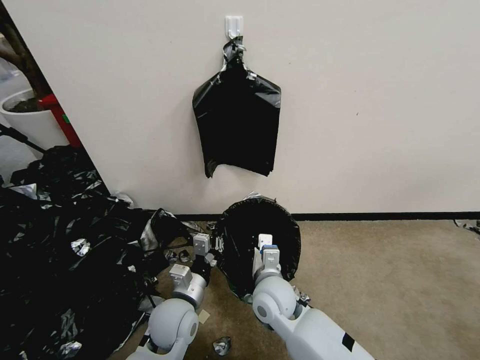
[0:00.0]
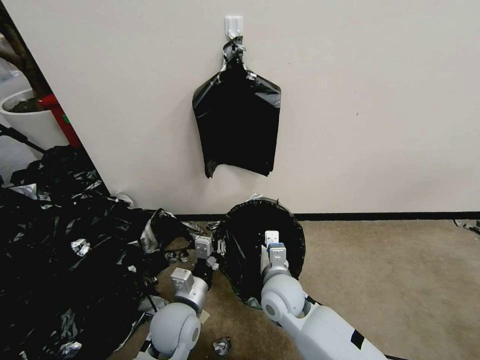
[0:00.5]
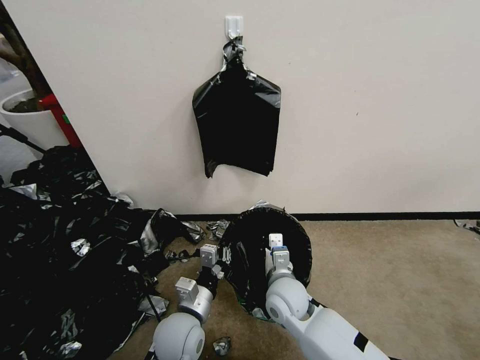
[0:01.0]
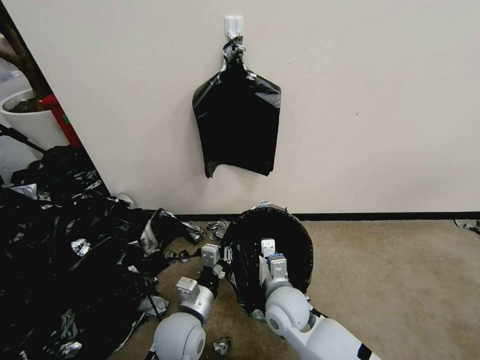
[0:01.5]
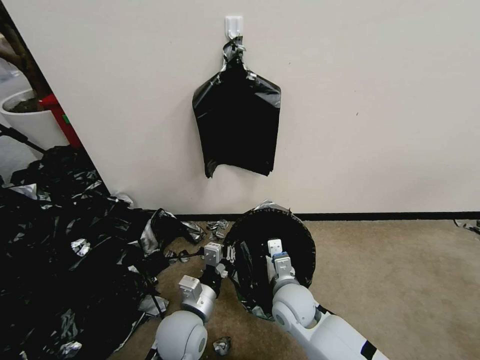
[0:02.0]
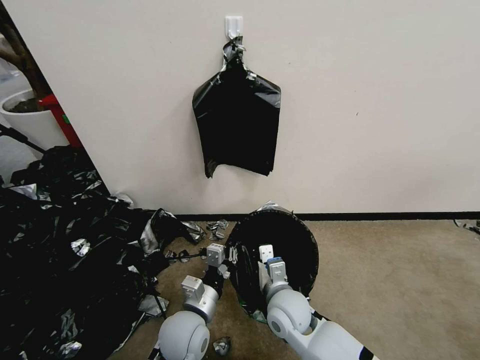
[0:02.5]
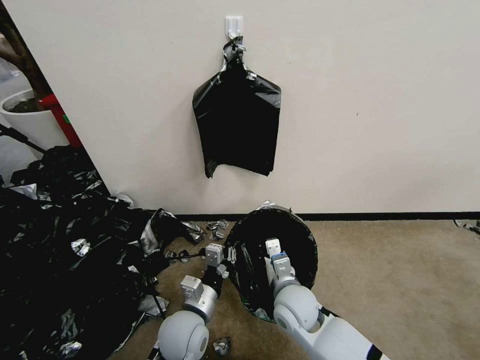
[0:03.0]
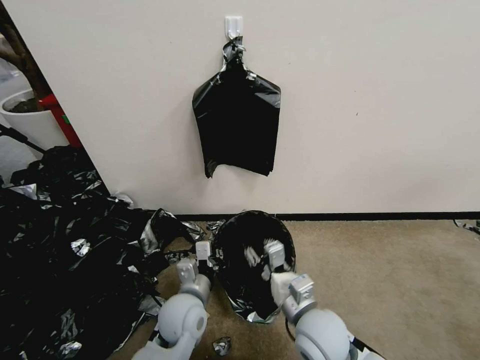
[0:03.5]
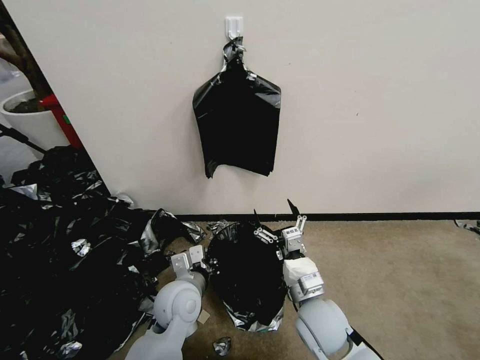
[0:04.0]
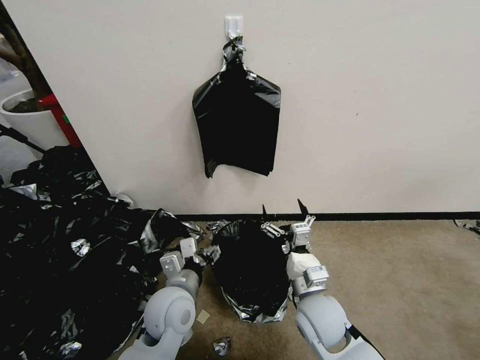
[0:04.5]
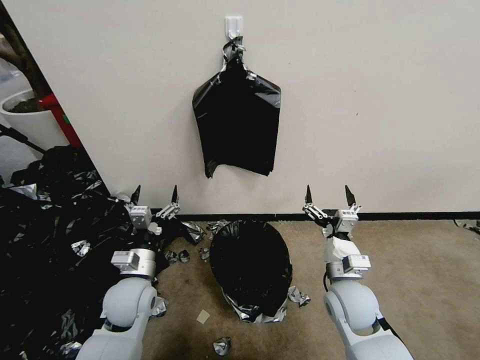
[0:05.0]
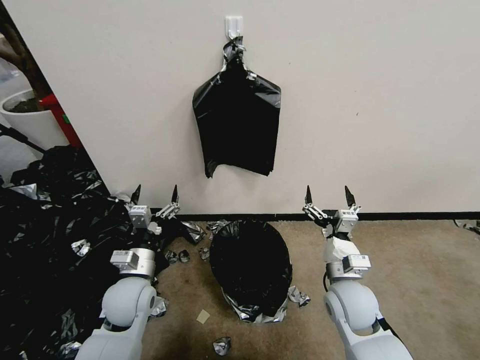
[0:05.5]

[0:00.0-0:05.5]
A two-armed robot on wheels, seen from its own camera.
Task of the whole recording: Place a trash bag onto the trash bin.
0:00.0 to 0:02.0: The right gripper changes place by roughly 5 cm.
0:02.0 to 0:03.5: The right gripper travels backward and upward by approximately 10 cm, and opens up.
0:03.5 to 0:05.5: The left gripper goes about 10 cm to the left, and opens its fingers; the right gripper travels to the right and forward by about 10 cm, and opens its fingers.
